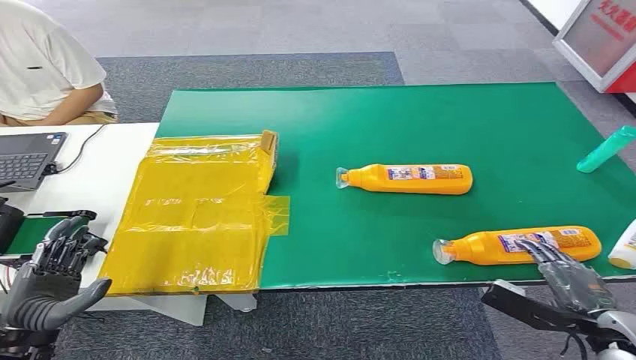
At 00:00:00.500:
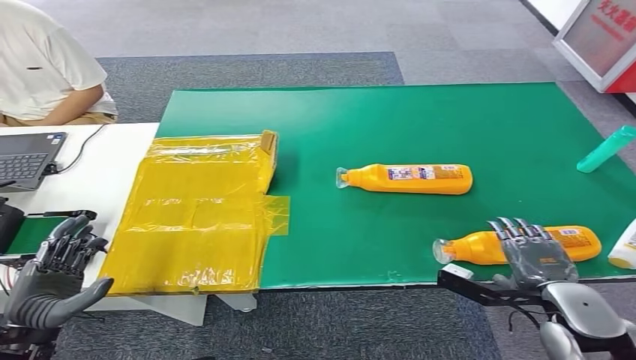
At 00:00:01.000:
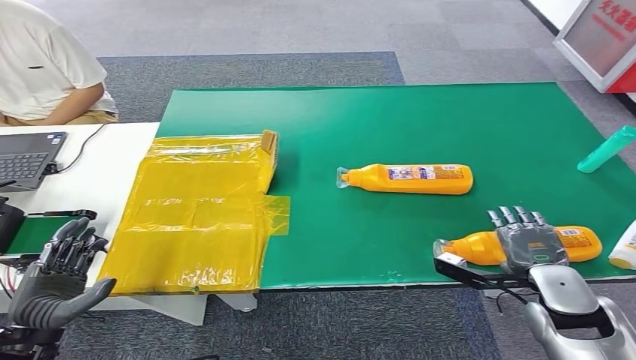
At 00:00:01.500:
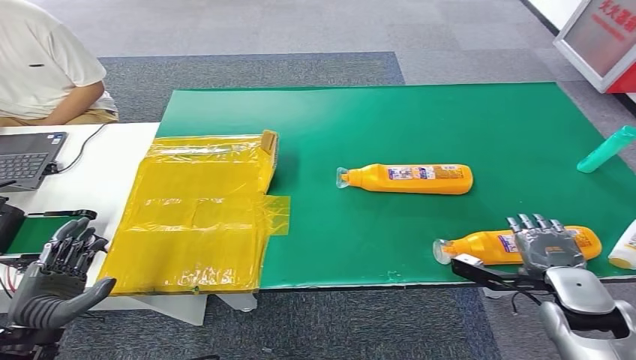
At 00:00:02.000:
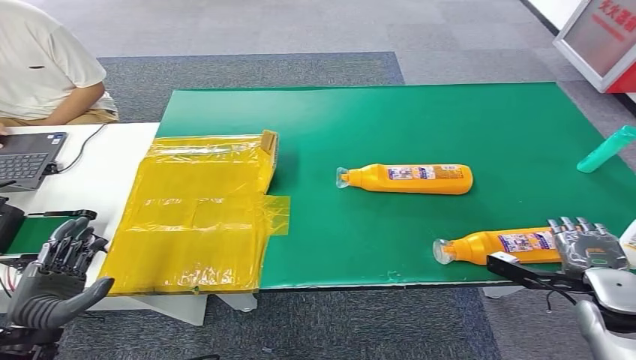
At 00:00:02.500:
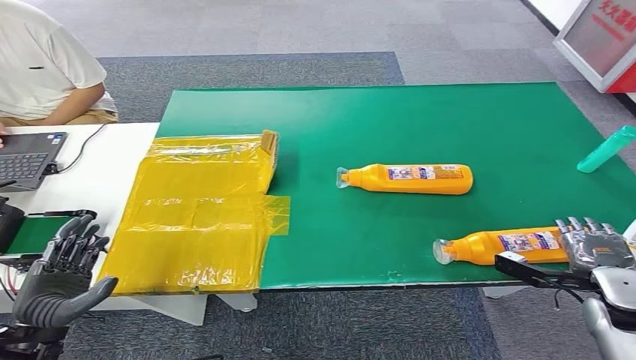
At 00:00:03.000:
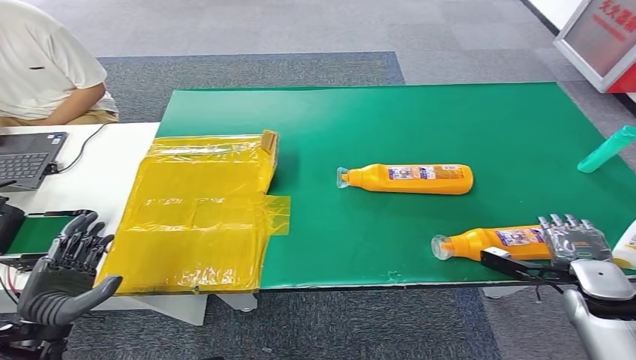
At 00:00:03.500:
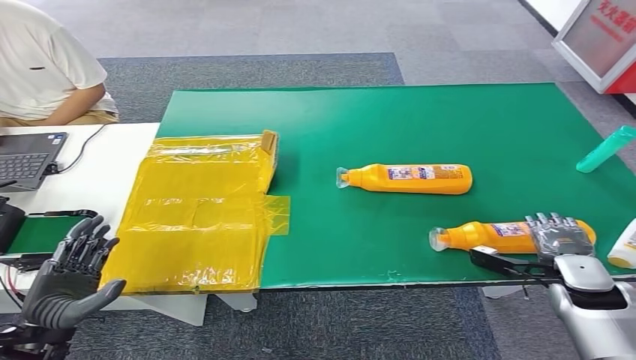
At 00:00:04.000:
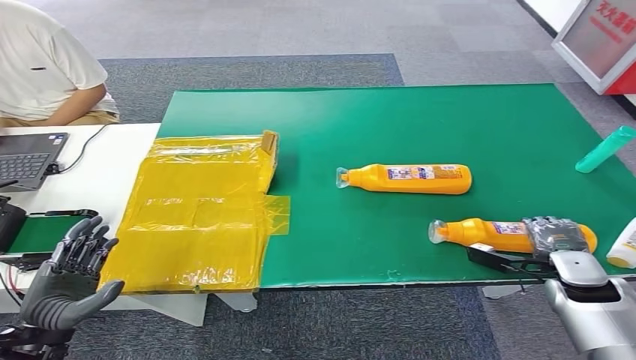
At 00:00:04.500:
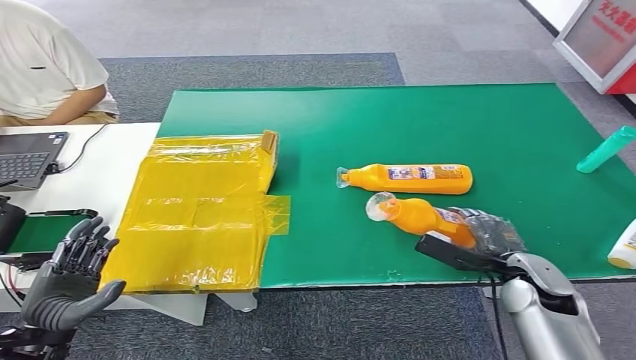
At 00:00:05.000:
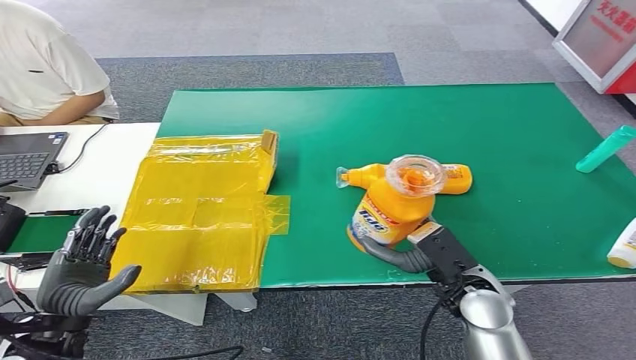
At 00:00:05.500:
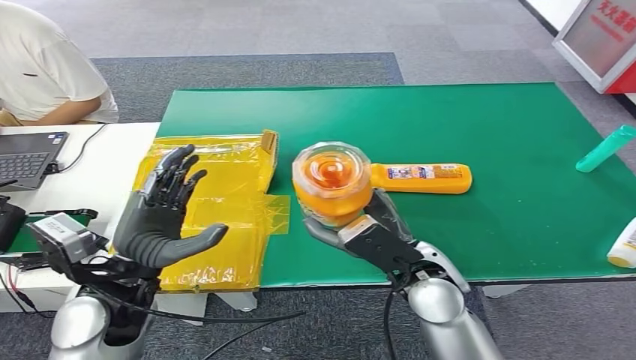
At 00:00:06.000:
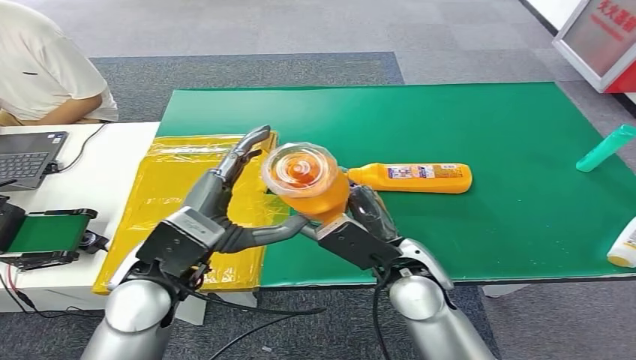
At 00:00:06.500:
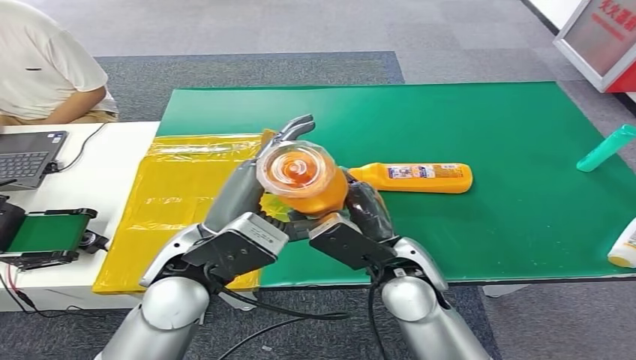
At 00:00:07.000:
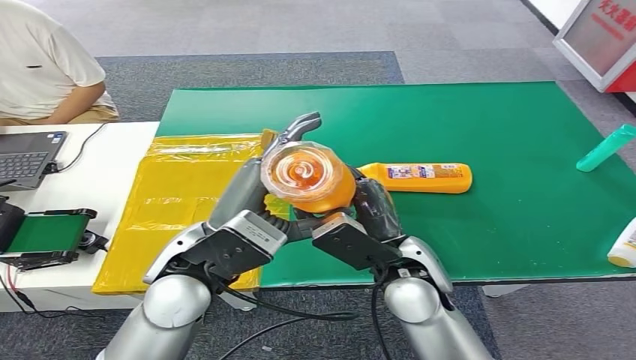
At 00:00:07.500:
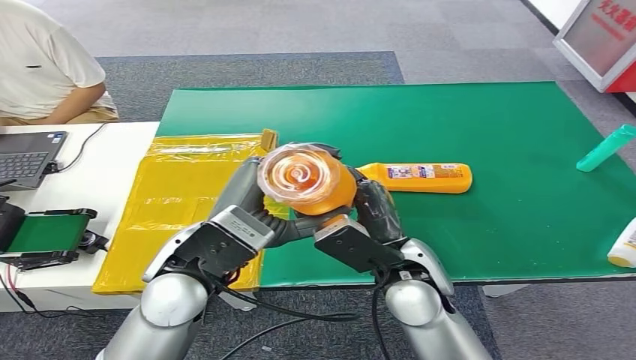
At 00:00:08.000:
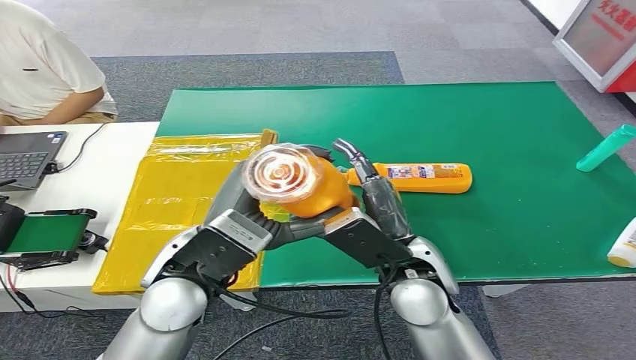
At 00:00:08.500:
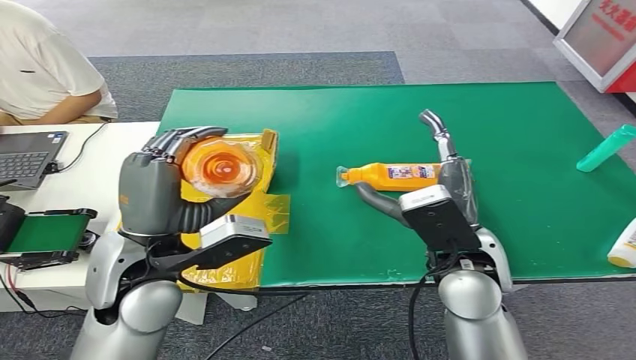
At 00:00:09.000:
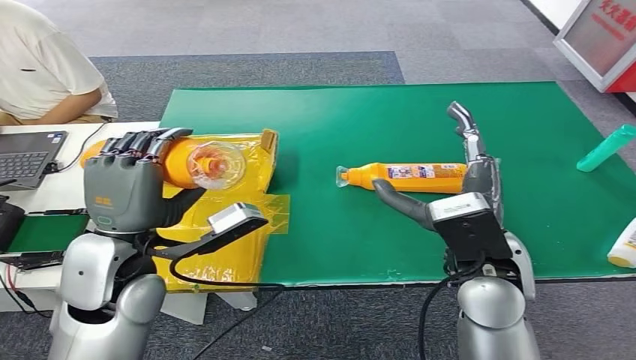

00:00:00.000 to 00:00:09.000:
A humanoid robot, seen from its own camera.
Step, 00:00:00.000 to 00:00:05.000: Pick up the bottle from the table.
00:00:02.000 to 00:00:04.500: The right hand is displaced to the left by approximately 10 cm.

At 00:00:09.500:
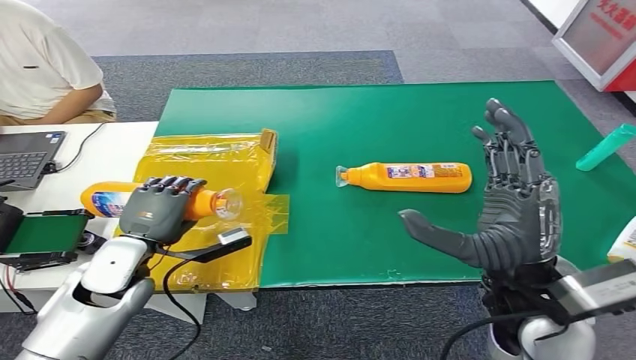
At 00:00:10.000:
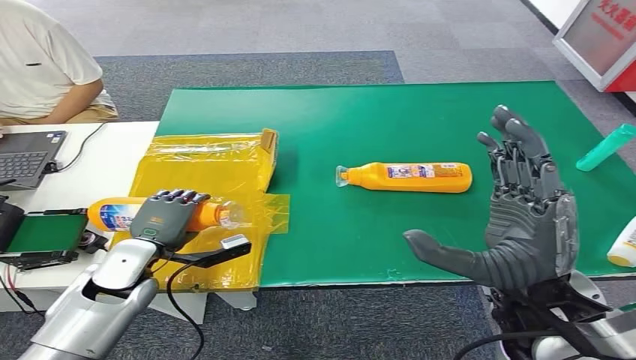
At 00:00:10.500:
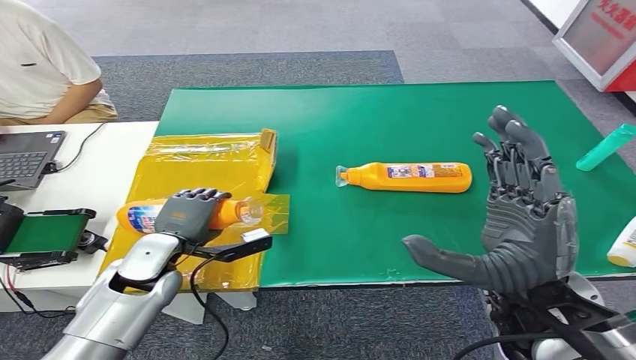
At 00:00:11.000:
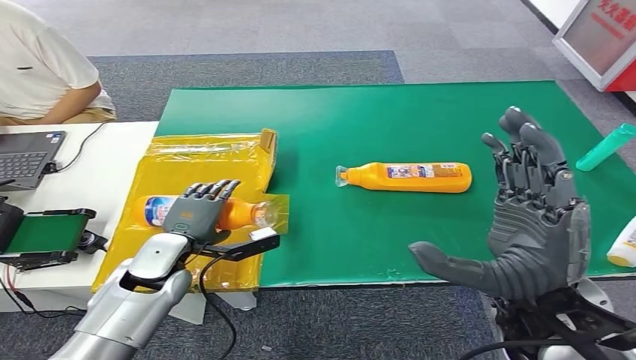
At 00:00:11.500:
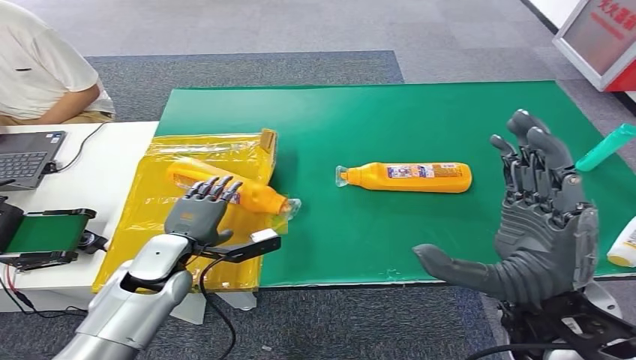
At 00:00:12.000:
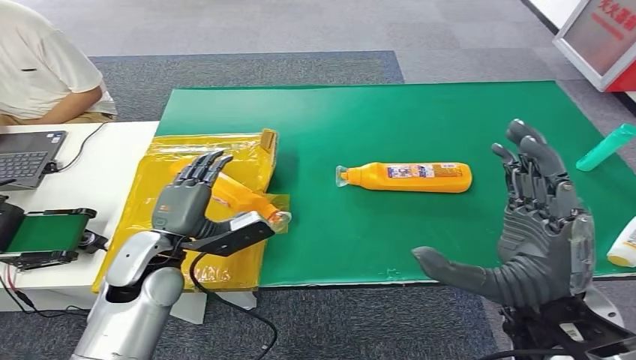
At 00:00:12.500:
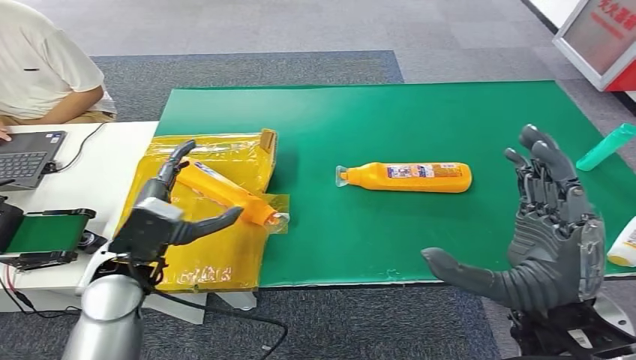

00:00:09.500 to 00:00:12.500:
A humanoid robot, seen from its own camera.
Step, 00:00:09.500 to 00:00:12.500: Turn the bottle to the front side.
00:00:09.500 to 00:00:11.000: The left hand changes place by roughly 5 cm.
00:00:11.000 to 00:00:12.500: The left hand moves upward, approximately 10 cm.
